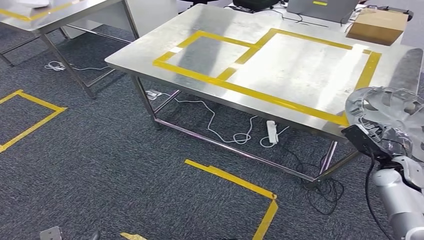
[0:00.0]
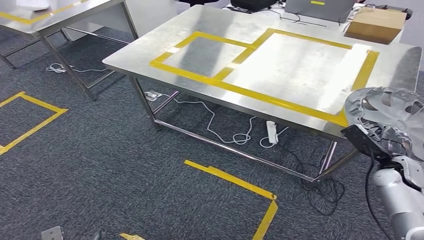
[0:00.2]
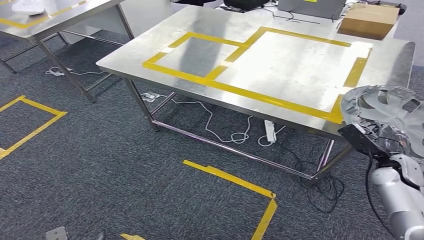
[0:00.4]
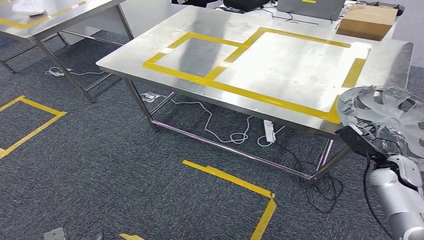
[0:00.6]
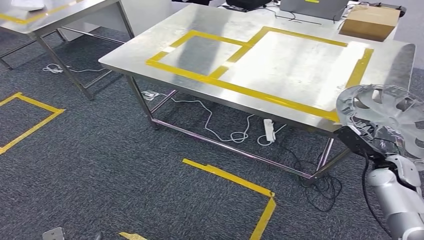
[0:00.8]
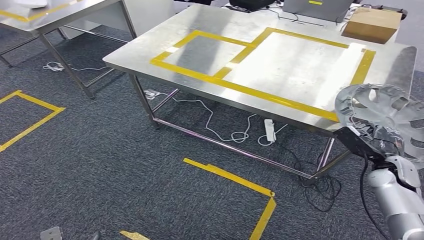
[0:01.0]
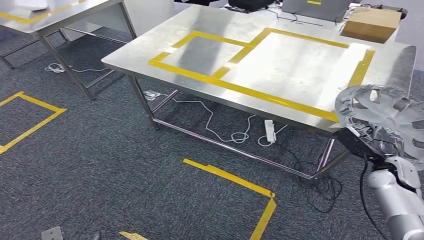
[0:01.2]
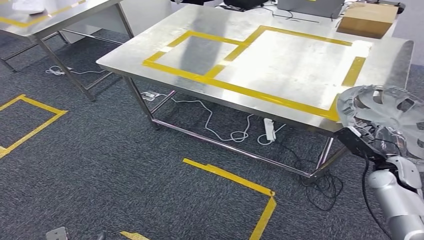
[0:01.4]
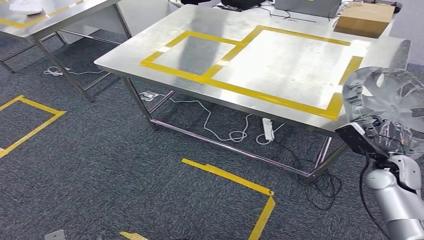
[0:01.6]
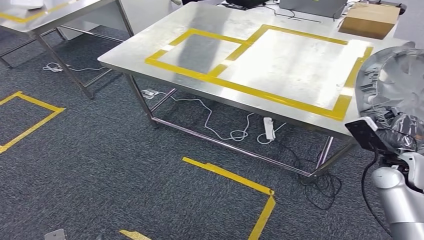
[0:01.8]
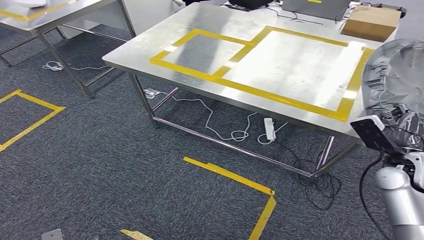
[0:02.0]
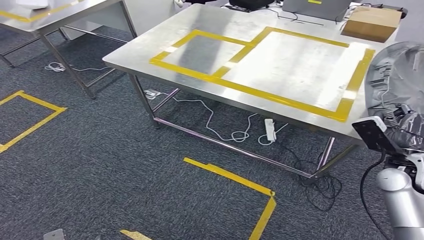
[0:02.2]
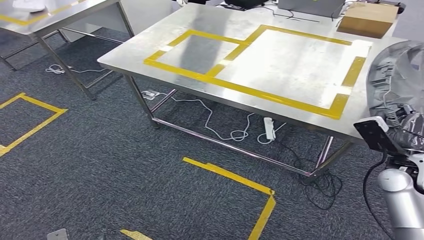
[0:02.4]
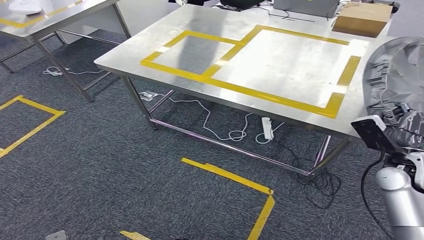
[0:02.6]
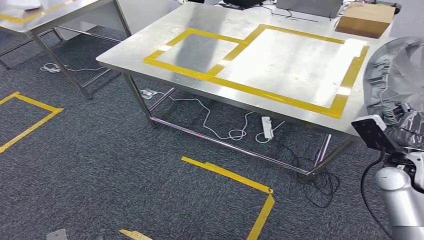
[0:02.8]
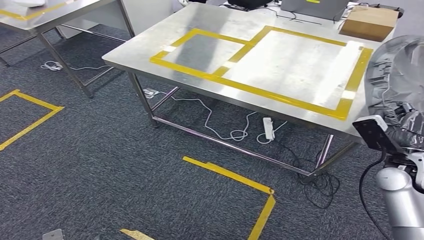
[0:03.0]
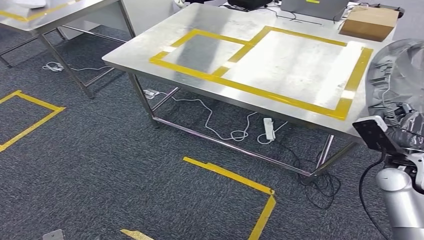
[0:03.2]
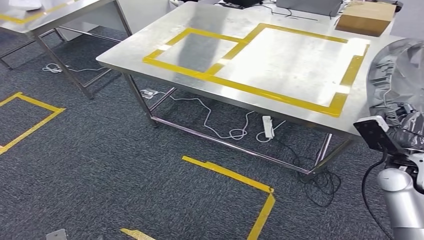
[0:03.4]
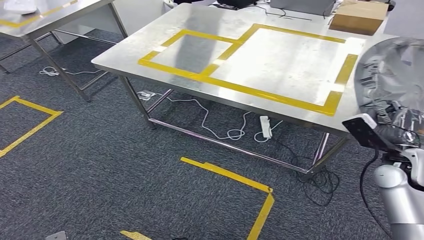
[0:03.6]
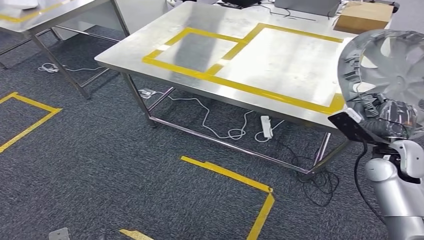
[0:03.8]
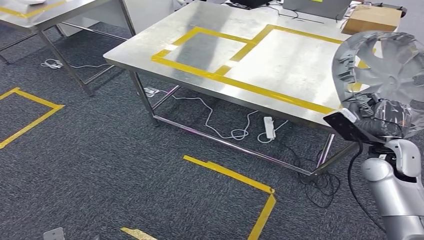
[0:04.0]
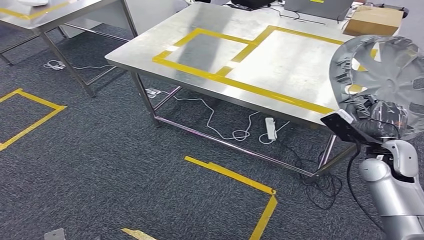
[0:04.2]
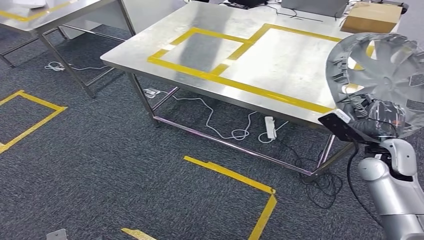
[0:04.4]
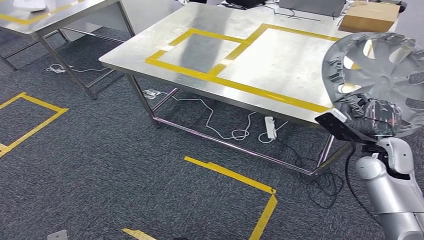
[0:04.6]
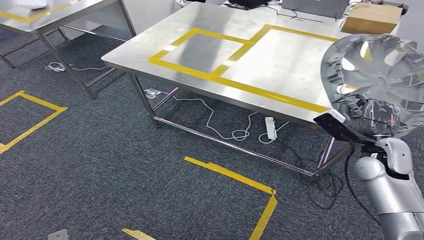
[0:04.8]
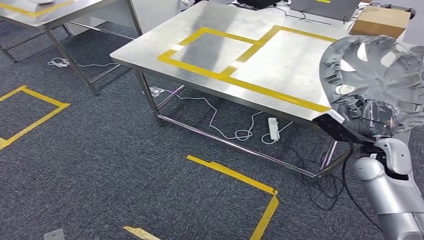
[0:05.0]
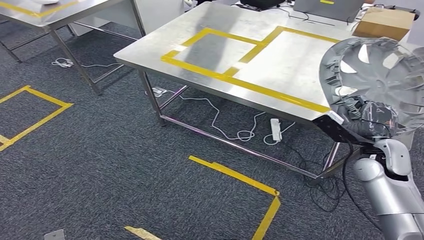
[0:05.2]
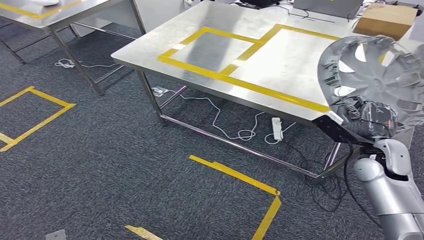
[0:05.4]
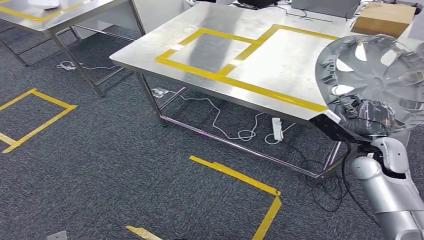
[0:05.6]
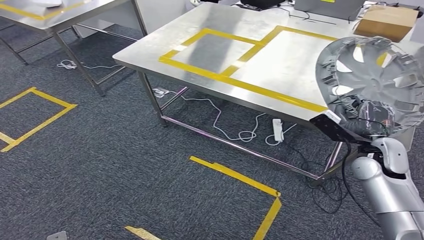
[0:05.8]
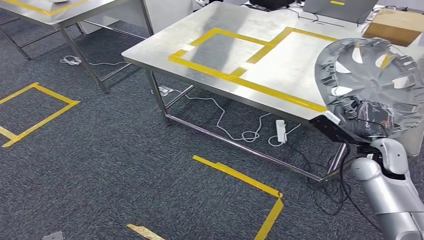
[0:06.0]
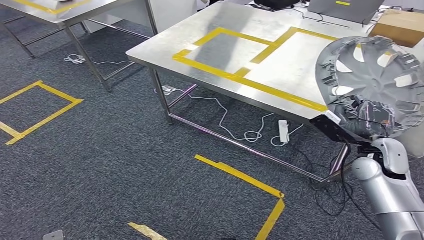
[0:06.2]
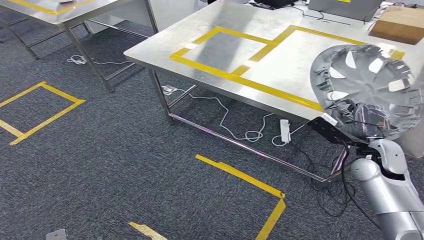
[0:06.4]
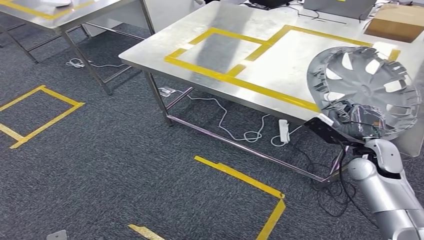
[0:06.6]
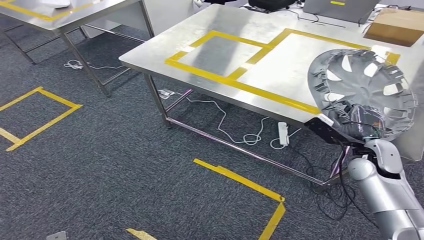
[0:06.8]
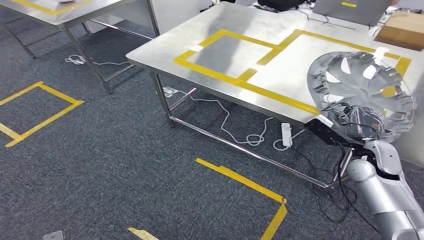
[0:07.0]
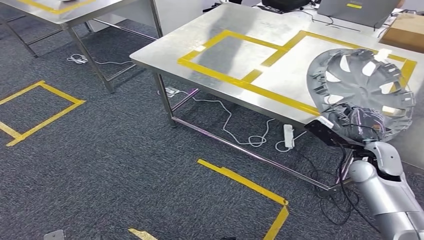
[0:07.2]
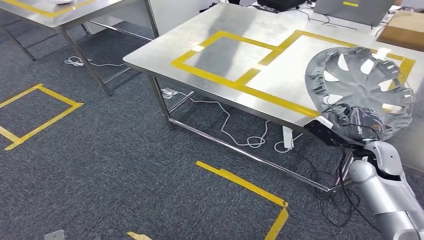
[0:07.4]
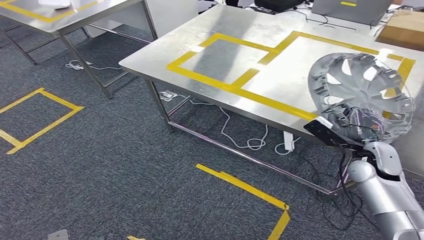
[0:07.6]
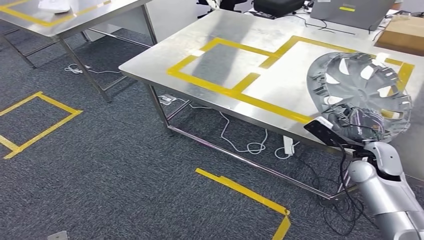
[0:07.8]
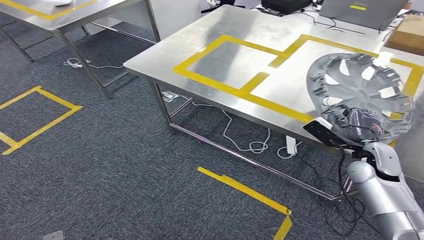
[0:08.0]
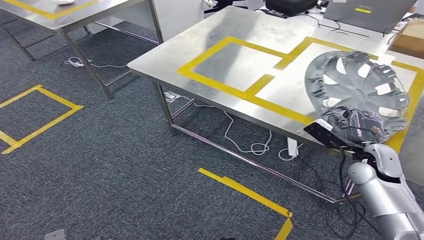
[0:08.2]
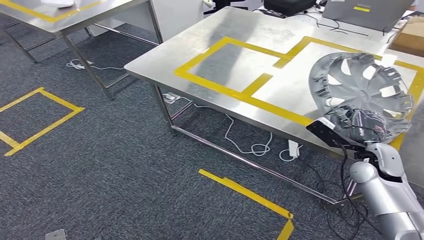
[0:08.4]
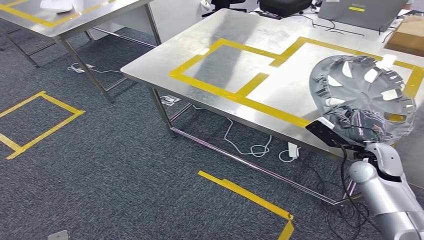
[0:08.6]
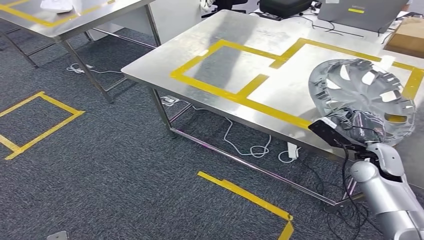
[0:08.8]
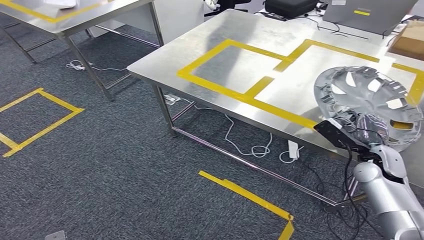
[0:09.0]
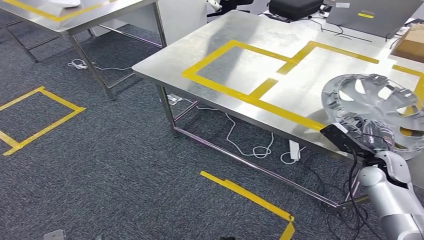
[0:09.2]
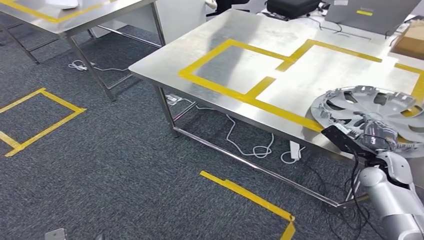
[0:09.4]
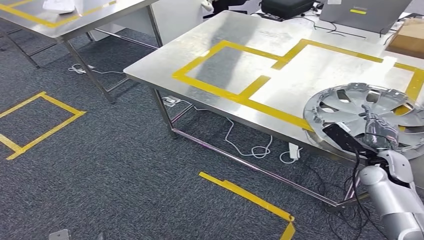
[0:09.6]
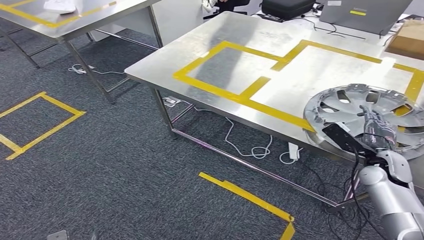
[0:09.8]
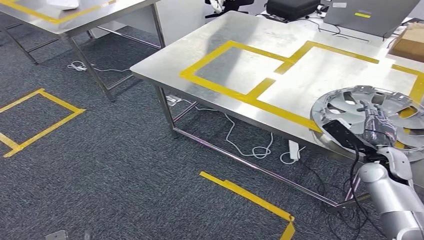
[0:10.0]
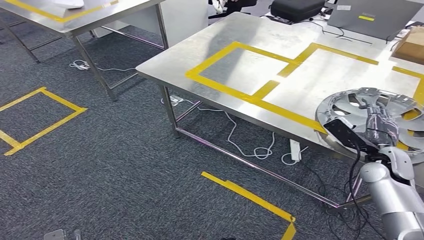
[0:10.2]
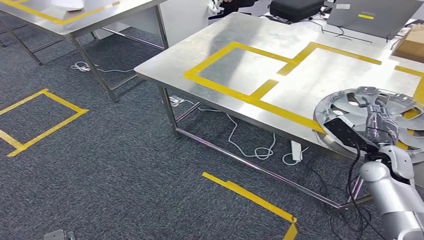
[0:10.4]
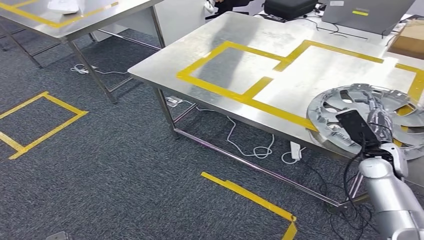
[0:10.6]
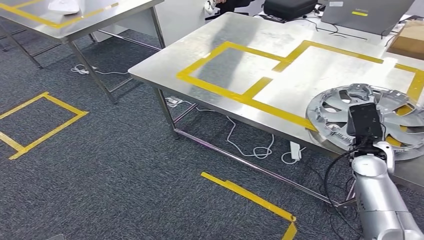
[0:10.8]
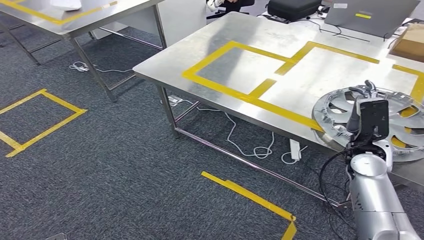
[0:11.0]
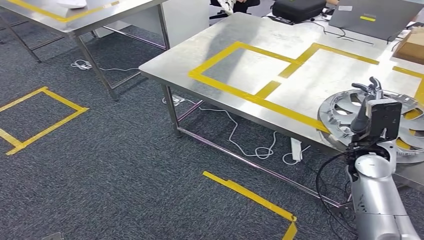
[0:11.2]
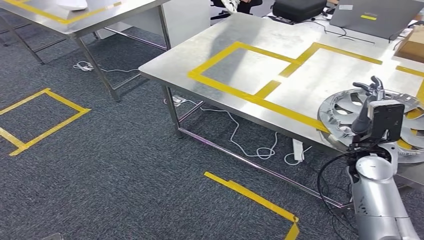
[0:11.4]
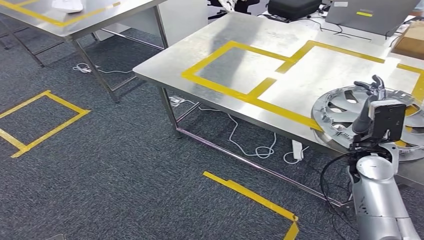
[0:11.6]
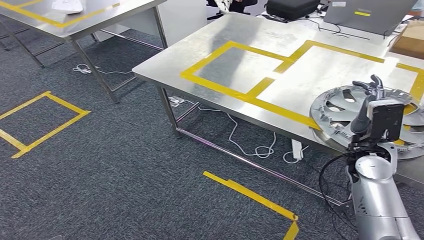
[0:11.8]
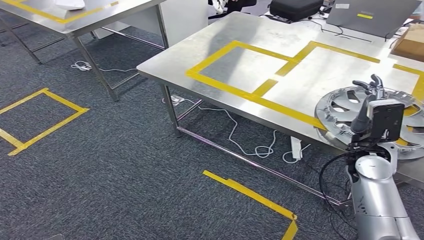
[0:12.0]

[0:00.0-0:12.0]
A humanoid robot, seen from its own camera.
Step, 0:00.6 to 0:01.0: Move the small component to the workbench.
0:03.0 to 0:04.4: The hands move only a little.
0:10.4 to 0:12.0: The right hand heads to the left and upward, covering roughly 10 cm.

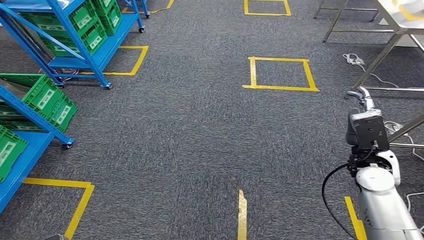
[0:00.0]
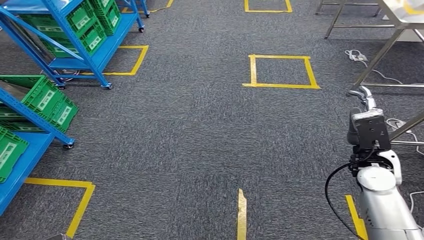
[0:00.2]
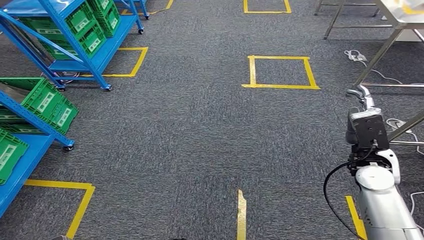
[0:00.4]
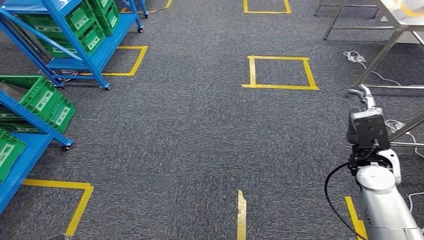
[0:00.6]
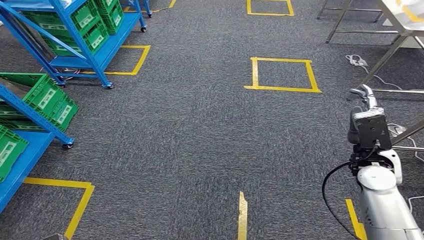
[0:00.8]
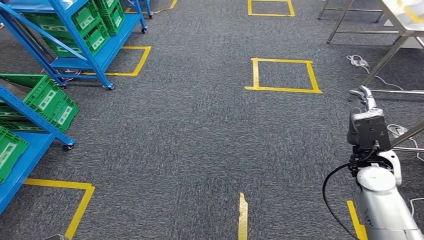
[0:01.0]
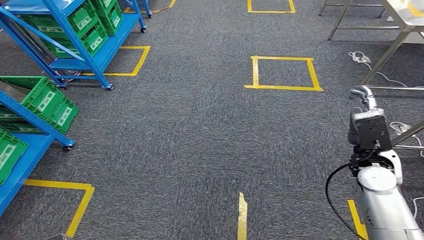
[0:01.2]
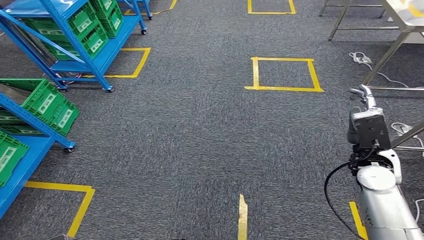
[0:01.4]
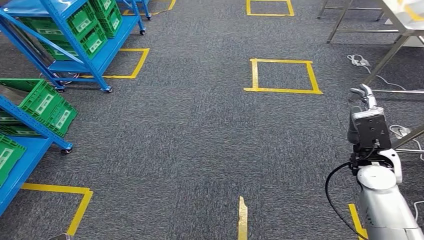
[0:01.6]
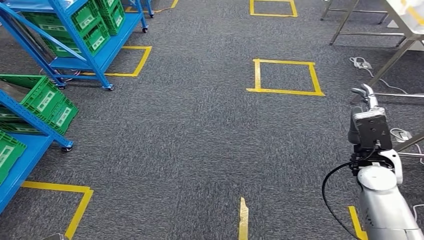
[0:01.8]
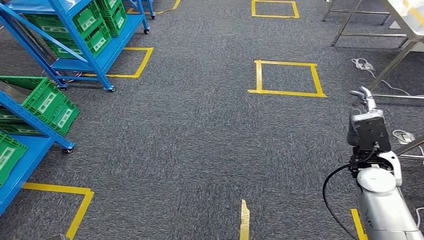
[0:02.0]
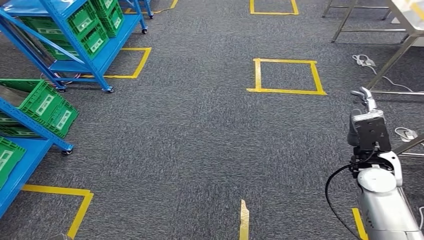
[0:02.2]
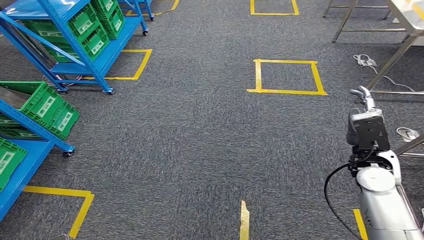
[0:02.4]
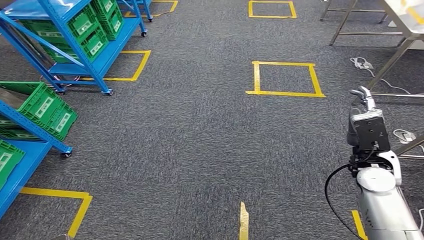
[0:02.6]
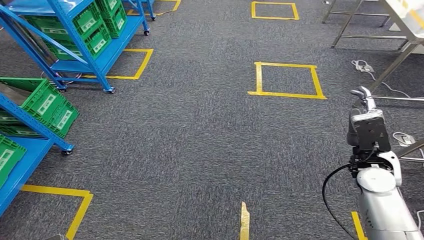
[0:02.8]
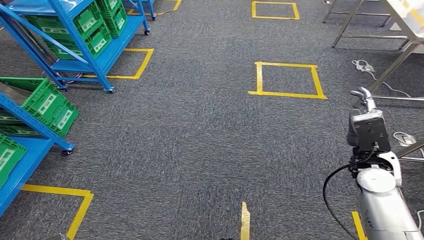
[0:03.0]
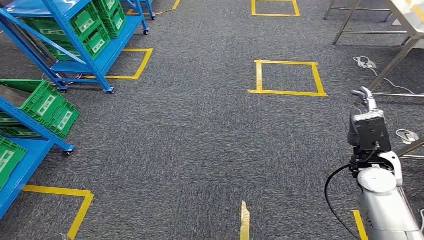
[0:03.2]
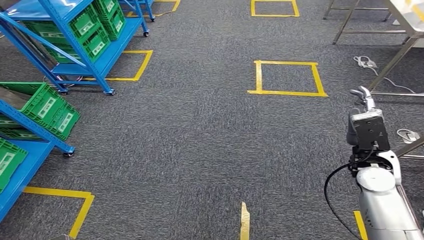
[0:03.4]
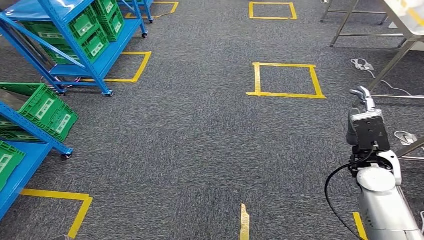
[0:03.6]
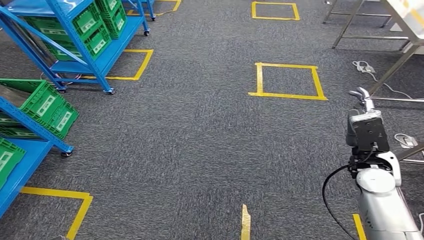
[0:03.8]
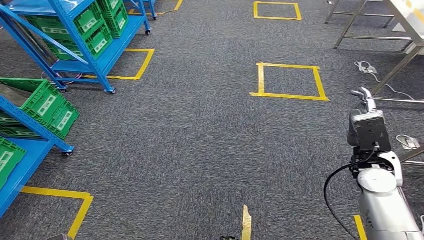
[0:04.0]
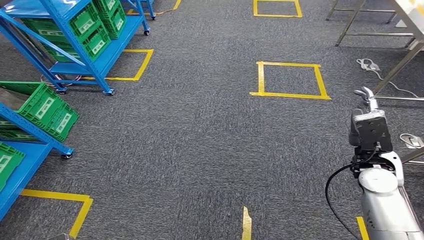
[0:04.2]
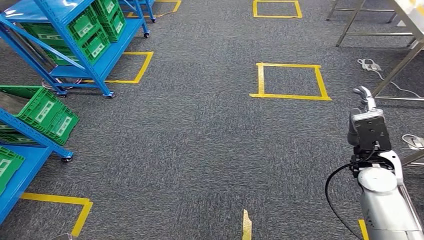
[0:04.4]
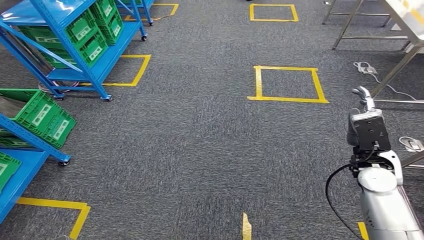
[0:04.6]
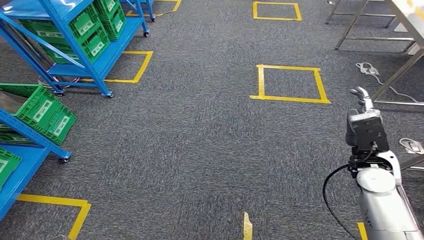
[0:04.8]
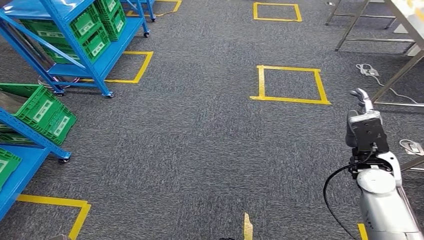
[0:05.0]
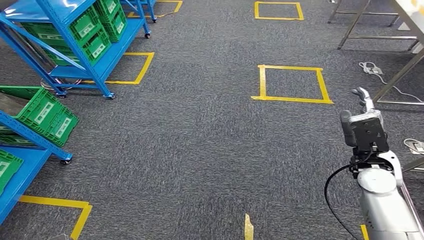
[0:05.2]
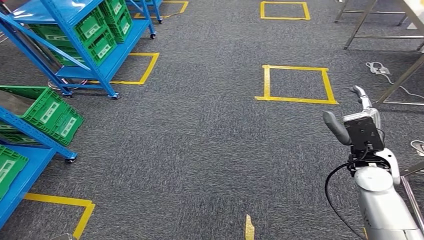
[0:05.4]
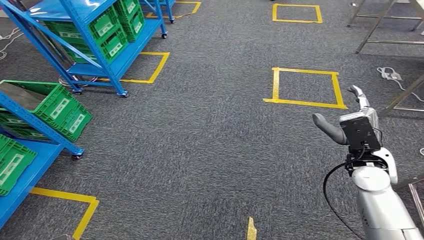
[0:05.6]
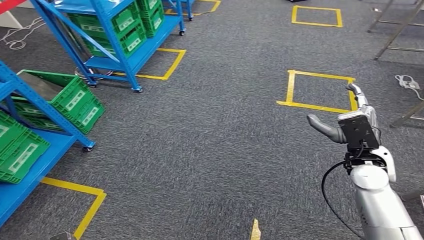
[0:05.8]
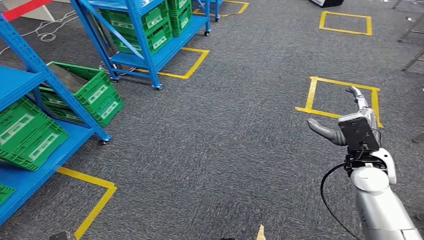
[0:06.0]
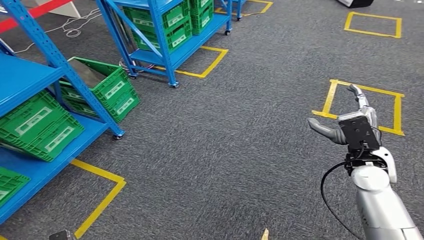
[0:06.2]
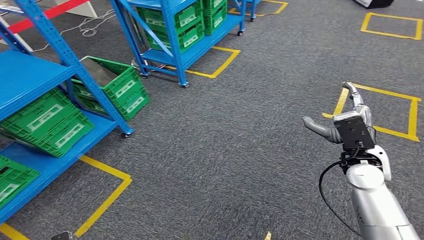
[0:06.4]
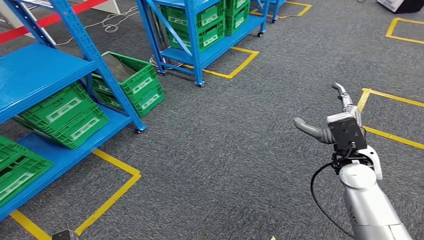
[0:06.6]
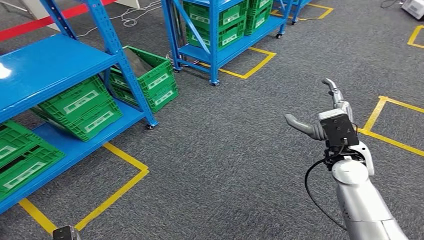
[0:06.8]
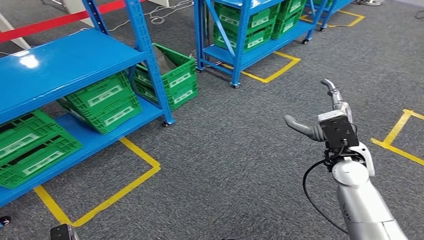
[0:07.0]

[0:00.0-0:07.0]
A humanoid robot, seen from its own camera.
0:00.0 to 0:04.2: Both hands stay put.
